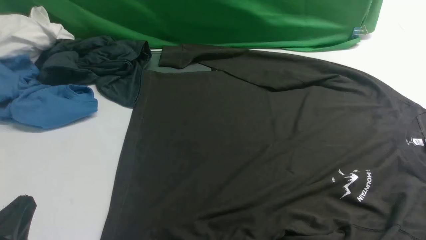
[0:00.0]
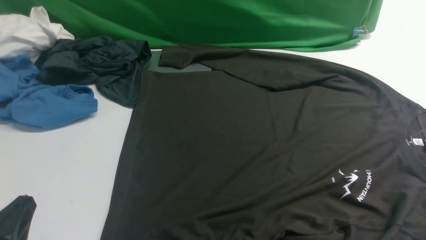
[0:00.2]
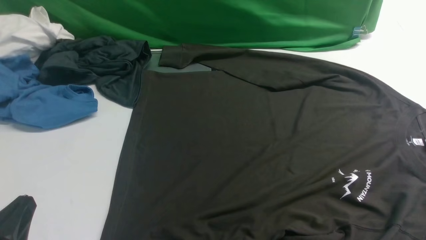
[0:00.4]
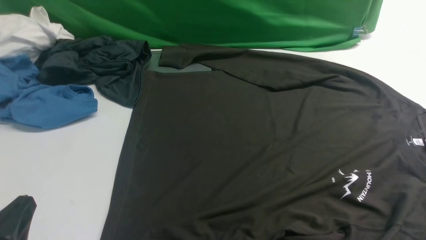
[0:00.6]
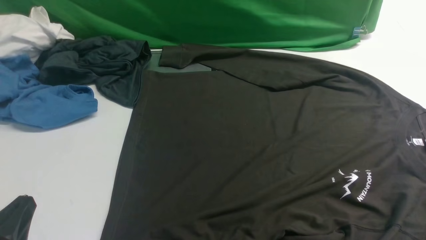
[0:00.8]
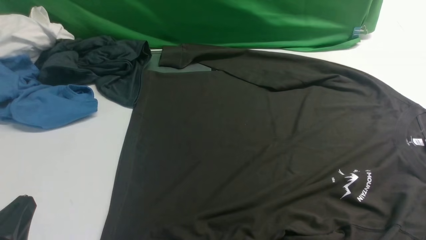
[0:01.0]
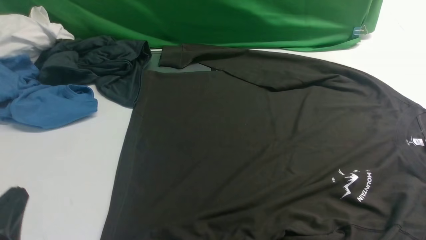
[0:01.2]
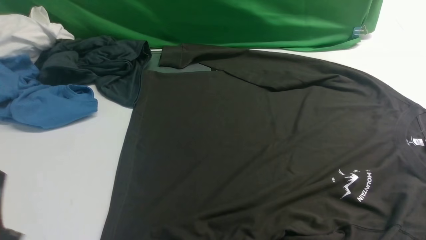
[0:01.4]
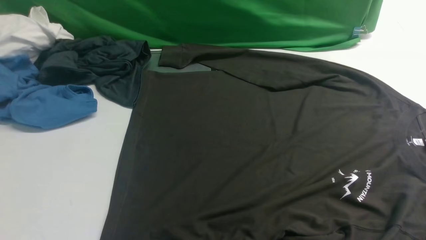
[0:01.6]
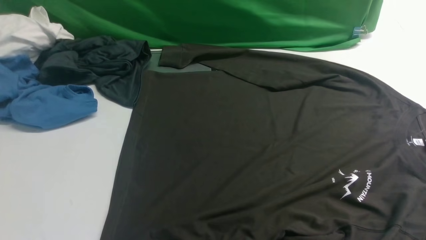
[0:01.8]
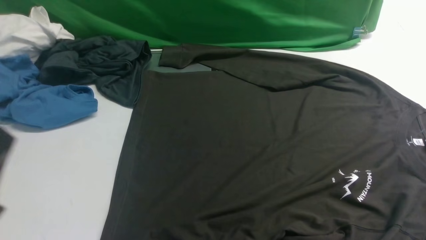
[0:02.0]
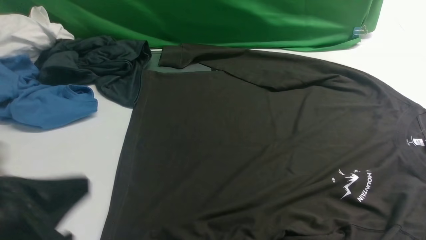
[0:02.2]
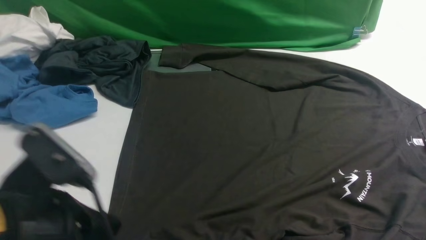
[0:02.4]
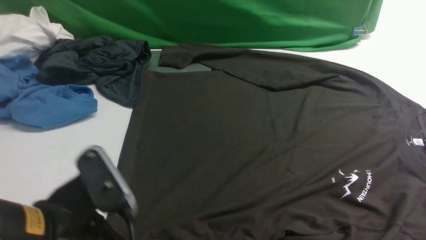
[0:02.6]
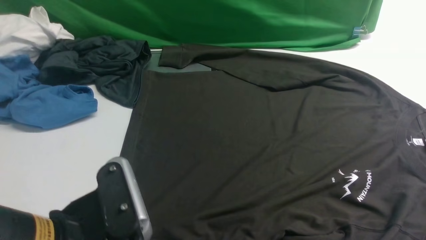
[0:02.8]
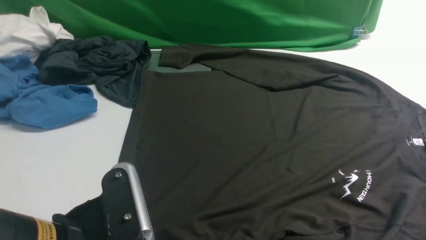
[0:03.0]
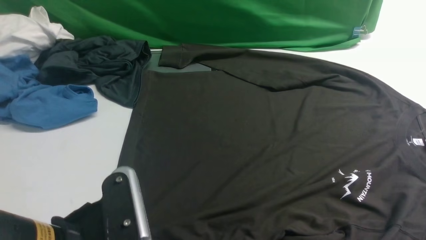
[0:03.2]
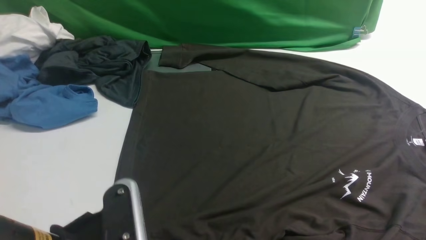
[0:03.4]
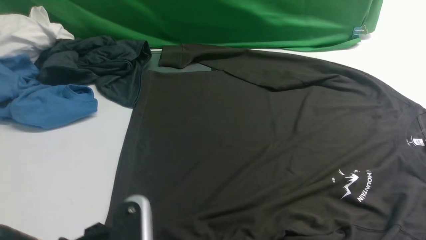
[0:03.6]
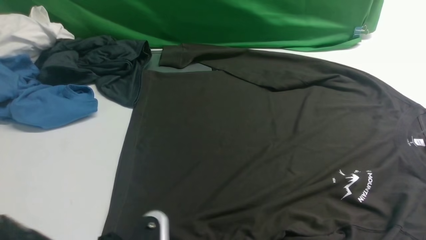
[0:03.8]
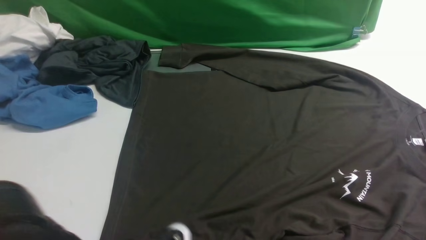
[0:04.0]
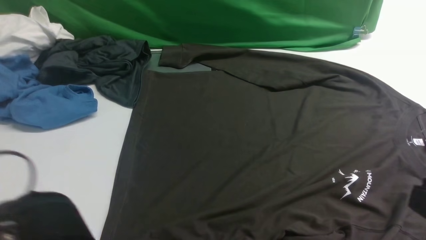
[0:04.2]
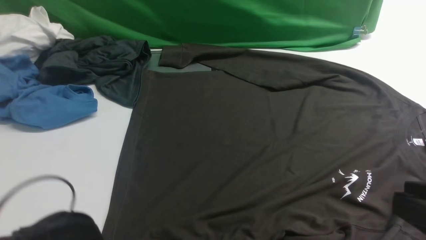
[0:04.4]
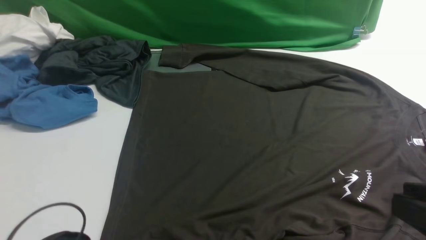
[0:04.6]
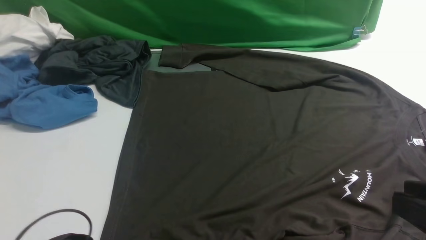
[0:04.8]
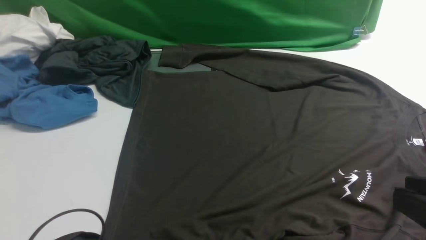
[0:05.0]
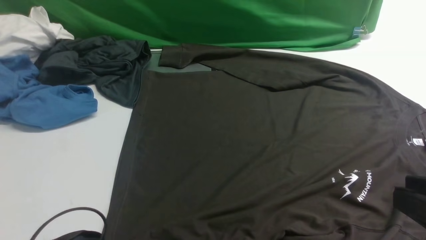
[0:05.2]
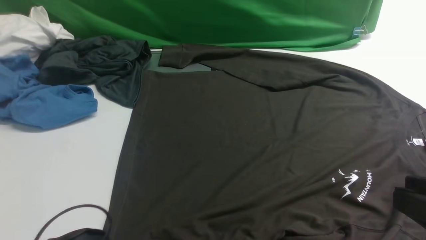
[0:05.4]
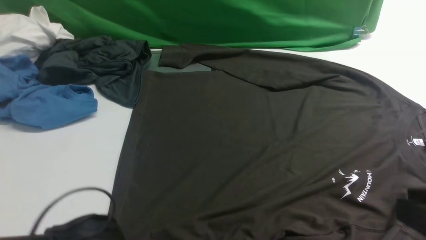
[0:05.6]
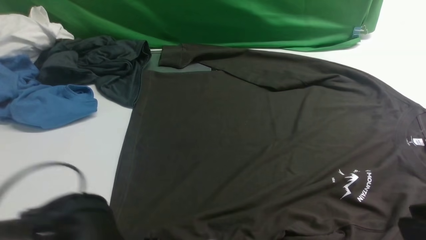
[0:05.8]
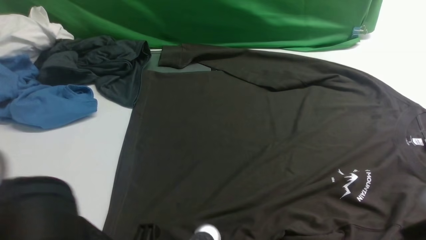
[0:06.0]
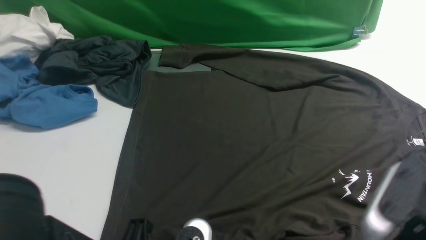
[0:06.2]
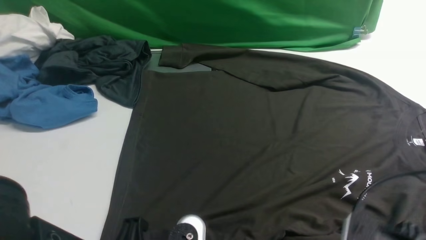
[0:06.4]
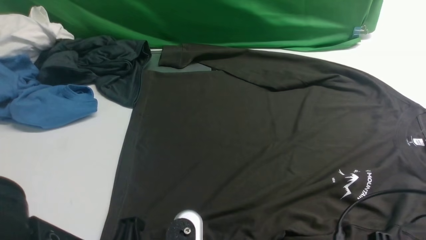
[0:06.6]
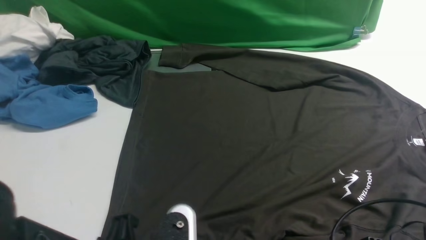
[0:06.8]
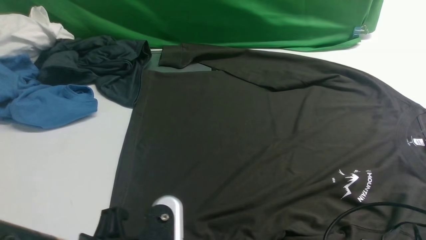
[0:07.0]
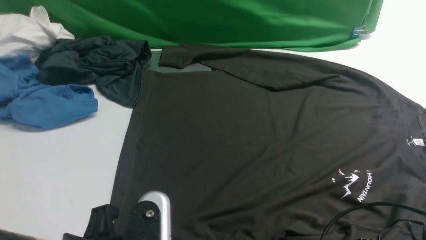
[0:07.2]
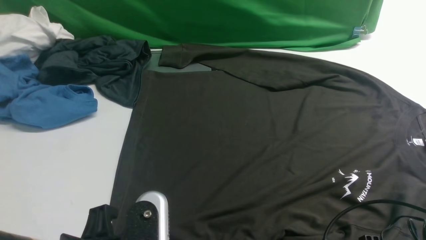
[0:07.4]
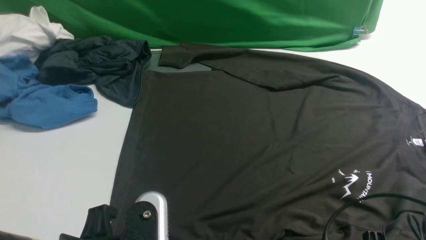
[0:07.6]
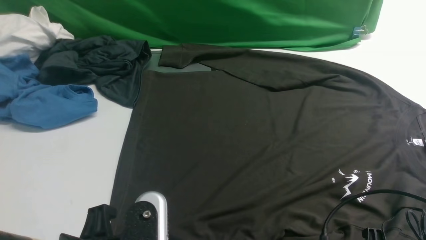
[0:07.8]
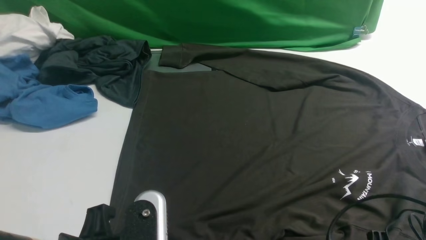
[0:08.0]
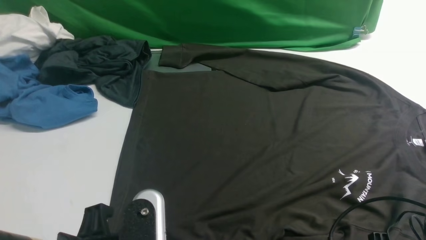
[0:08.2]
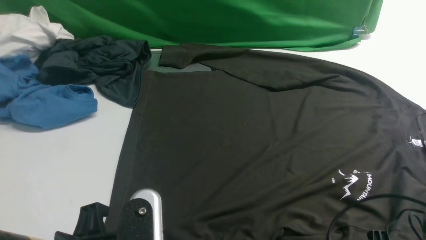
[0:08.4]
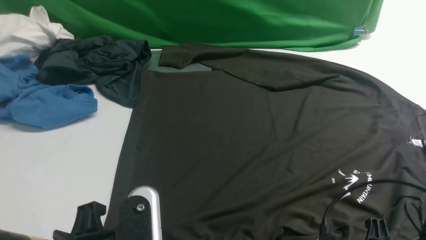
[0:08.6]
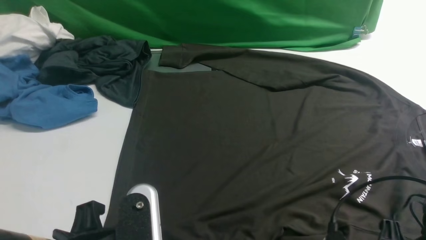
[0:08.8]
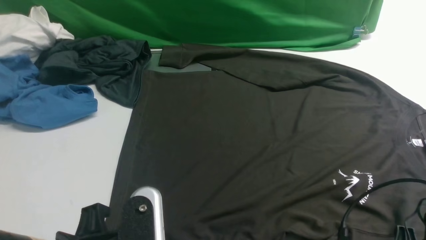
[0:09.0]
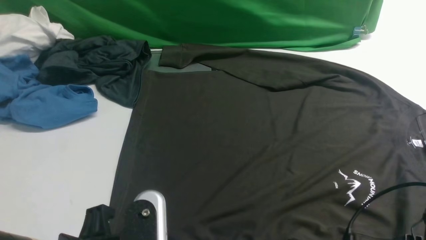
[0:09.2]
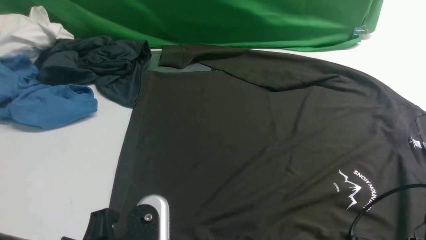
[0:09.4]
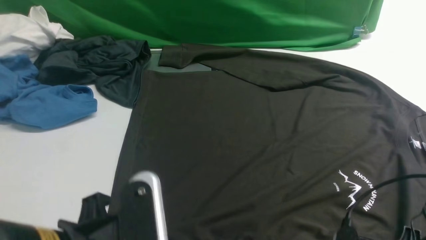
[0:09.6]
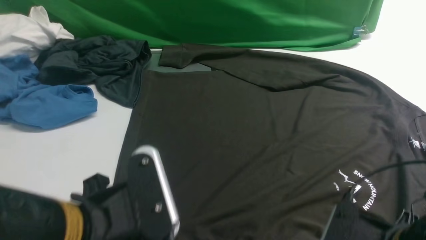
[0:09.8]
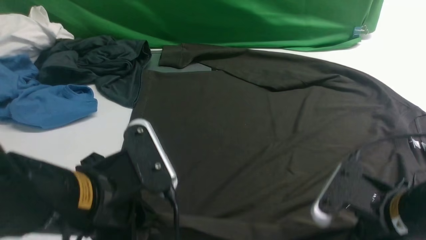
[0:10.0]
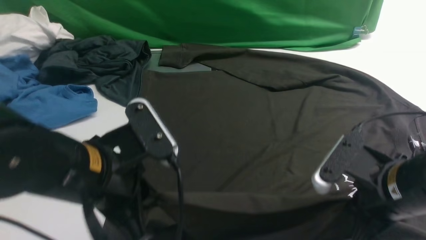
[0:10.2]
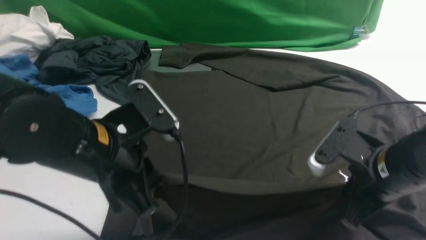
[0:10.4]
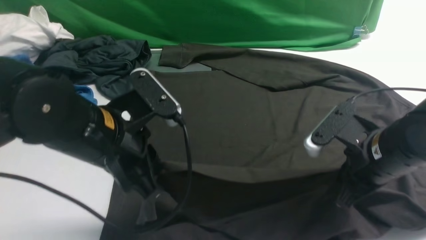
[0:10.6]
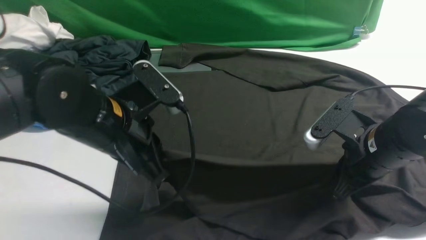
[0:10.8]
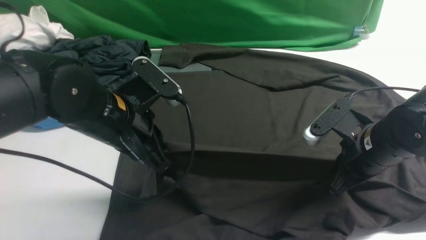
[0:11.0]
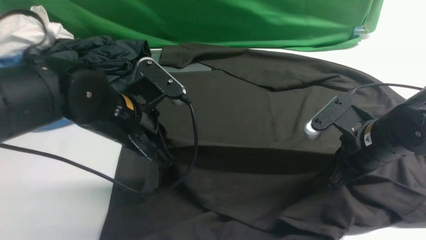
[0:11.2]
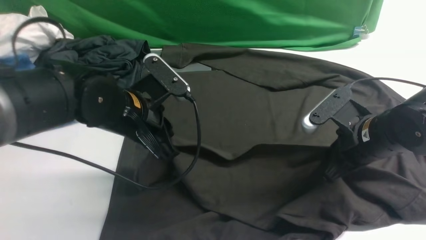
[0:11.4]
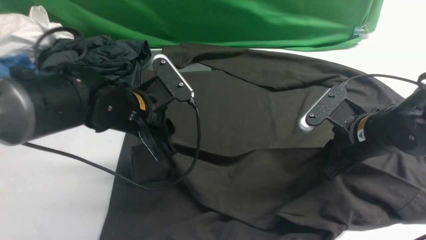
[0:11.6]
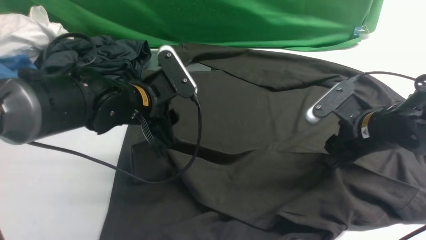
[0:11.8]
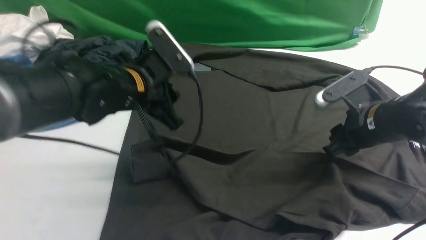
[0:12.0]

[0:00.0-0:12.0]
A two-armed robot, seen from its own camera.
Step, 0:00.0 to 0:09.8: use the left arm to clamp the cuff closest to it.
Step, 0:10.2 to 0:11.8: use the left arm to drag and place the cuff at the centered position on the left edge of the fabric.
0:01.6 to 0:03.0: The left gripper heads to the right, covering roughly 10 cm.
0:03.0 to 0:04.4: The left gripper travels downward by approximately 10 cm, and opens its fingers, while the right gripper shifts roughly 10 cm upward and to the left.
0:04.4 to 0:06.0: The left gripper travels upward by roughly 5 cm, and closes its fingers.
0:06.0 to 0:07.6: The right gripper travels downward by roughly 15 cm, and opens, then closes again. The left gripper moves about 5 cm.
0:07.6 to 0:09.0: The right gripper closes.
0:09.0 to 0:10.4: Both grippers move forward, about 10 cm.
0:10.4 to 0:12.0: The two grippers go roughly 10 cm forward. The left gripper opens; the right gripper opens its fingers.

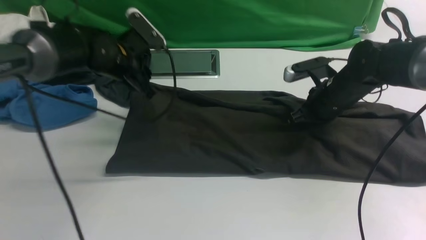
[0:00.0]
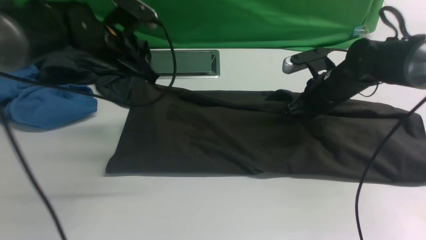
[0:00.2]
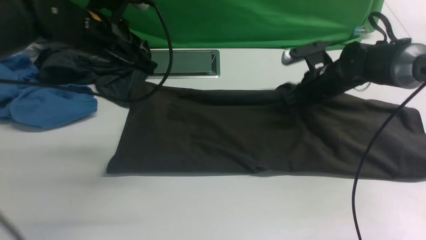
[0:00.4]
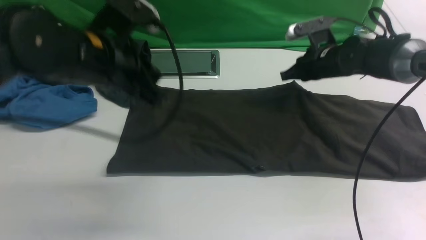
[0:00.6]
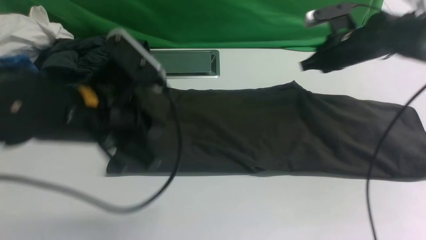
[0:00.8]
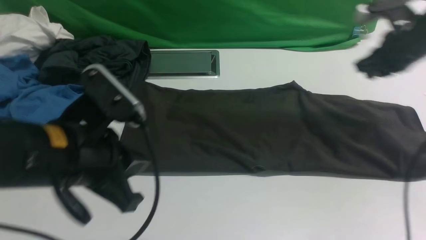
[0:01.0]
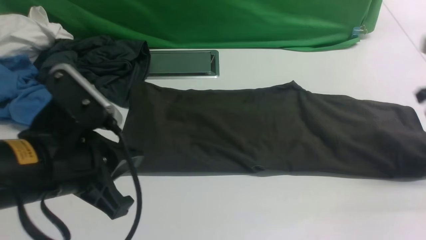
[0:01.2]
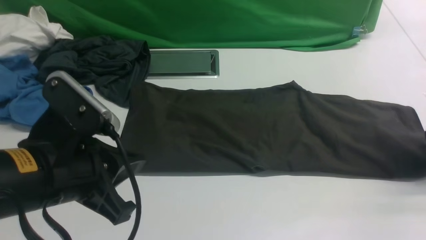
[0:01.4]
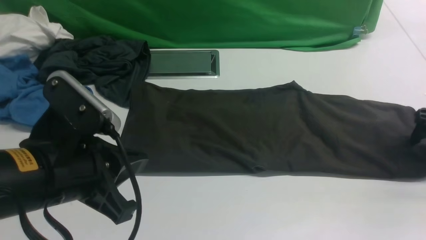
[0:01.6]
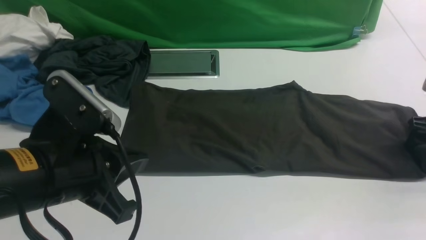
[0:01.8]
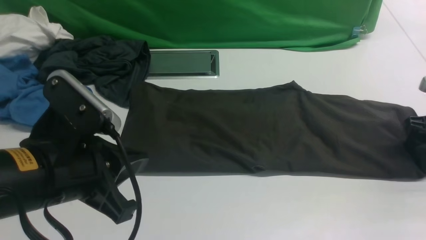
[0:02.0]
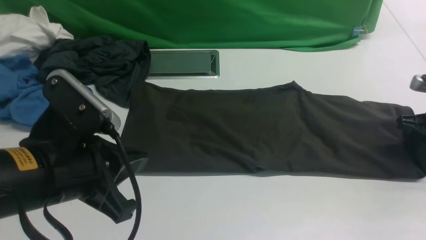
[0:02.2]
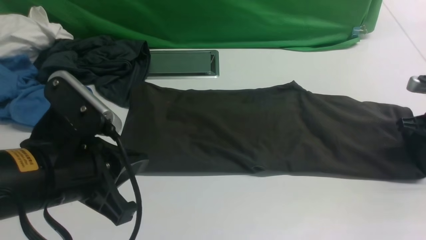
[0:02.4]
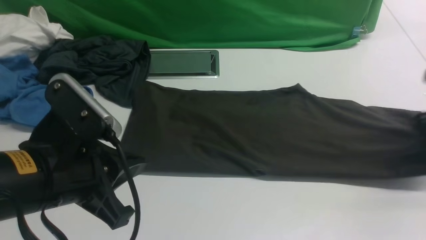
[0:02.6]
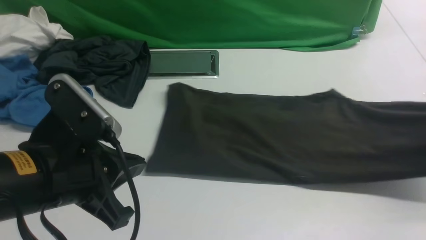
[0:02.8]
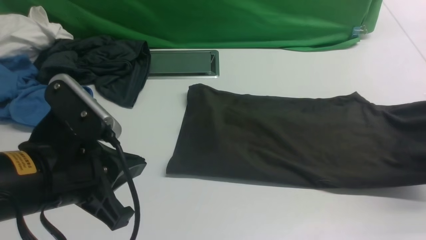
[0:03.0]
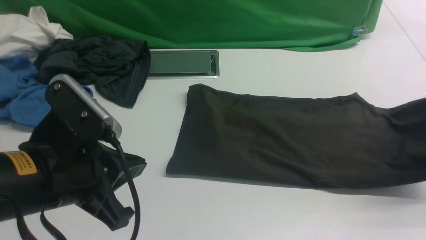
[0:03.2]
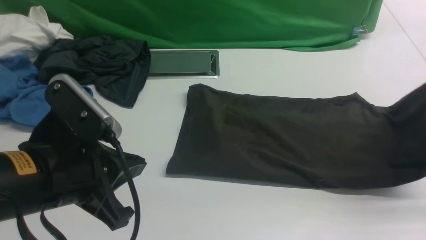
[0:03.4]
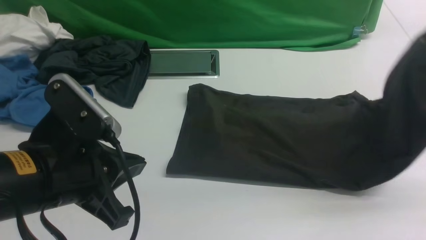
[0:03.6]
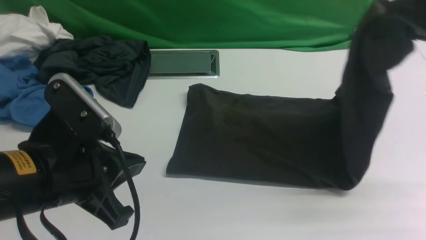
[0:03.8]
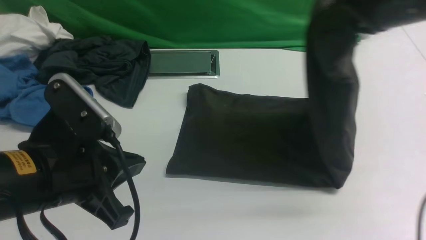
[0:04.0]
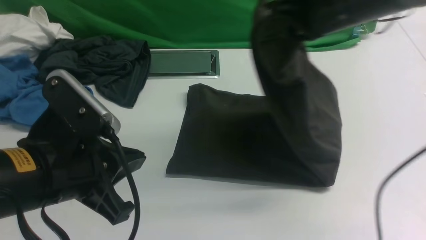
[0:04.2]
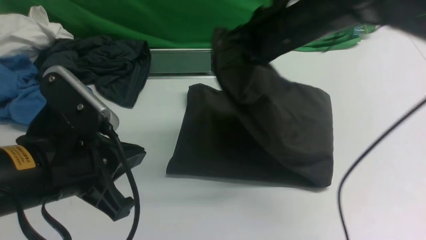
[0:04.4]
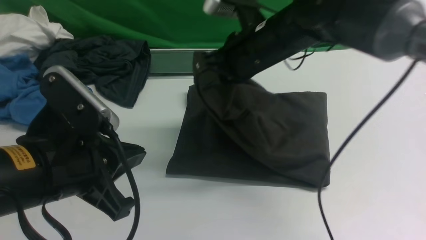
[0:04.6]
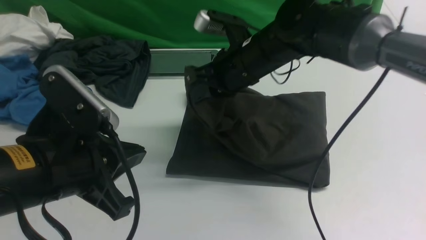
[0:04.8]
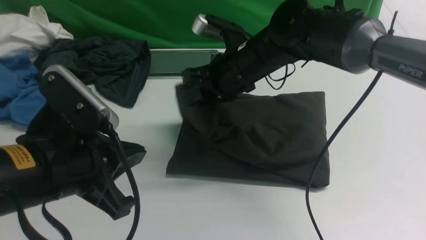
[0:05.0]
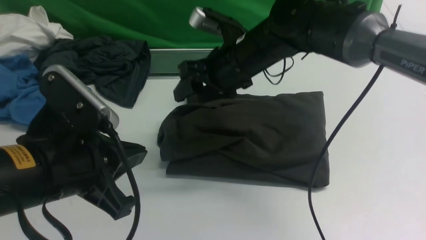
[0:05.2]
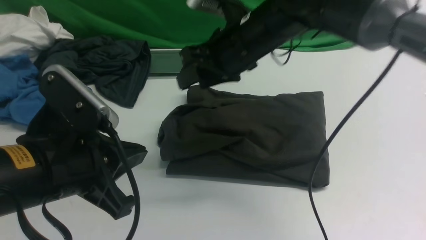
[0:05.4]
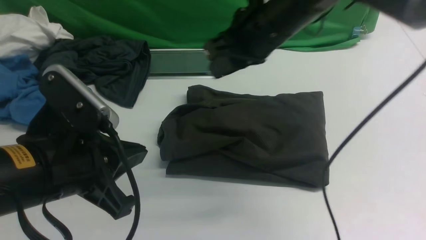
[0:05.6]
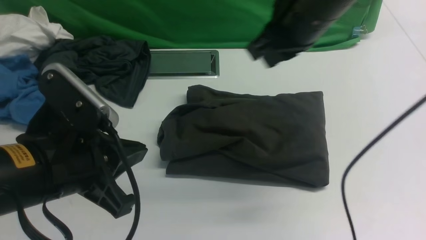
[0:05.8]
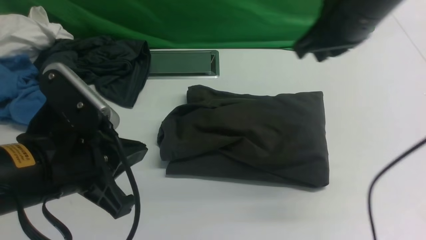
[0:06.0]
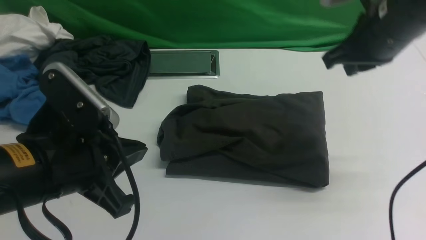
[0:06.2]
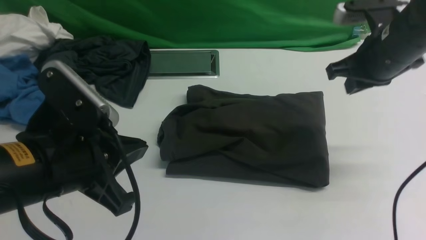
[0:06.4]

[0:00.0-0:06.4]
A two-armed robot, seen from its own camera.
Step, 0:01.0 to 0:02.4: use the right arm to clamp the right edge of the fabric.
Step, 0:02.8 to 0:05.4: use the right arm to drag the right edge of the fabric to the left and folds it over the left edge.
0:00.0 to 0:01.6: The right gripper shifts roughly 20 cm to the right, and opens its fingers; the left gripper shifts some 25 cm backward, and closes its fingers.
0:01.6 to 0:03.2: The right gripper shifts roughly 15 cm upward and backward, and closes its fingers.
0:03.2 to 0:04.8: The right gripper shifts roughly 35 cm to the left.
0:04.8 to 0:06.4: The right gripper travels to the right by approximately 20 cm, and opens and closes again.
